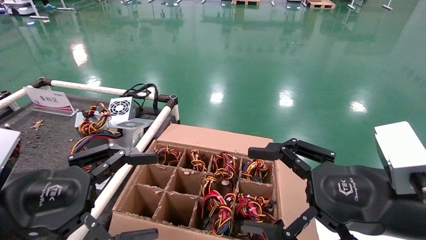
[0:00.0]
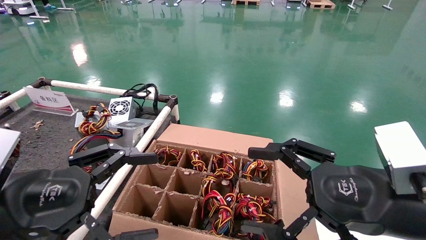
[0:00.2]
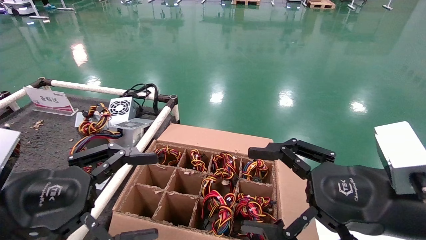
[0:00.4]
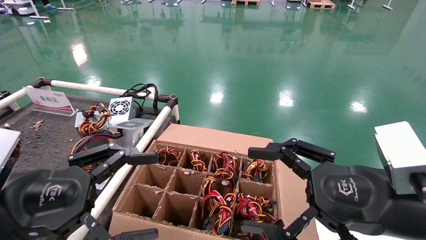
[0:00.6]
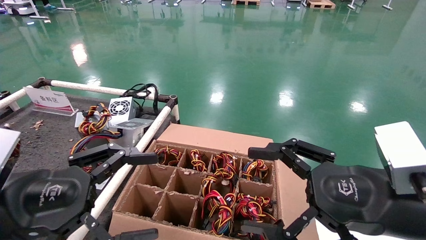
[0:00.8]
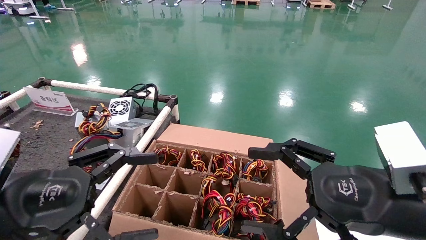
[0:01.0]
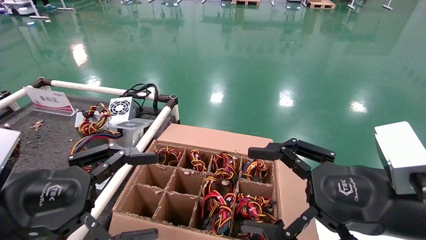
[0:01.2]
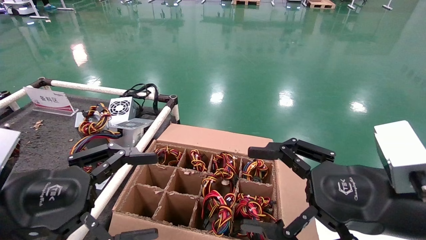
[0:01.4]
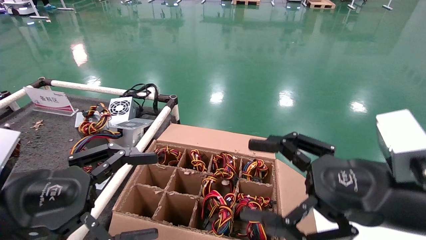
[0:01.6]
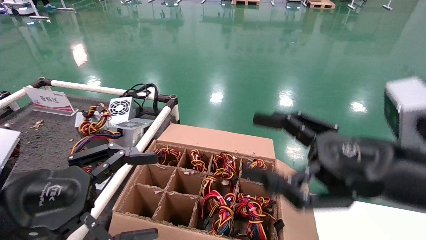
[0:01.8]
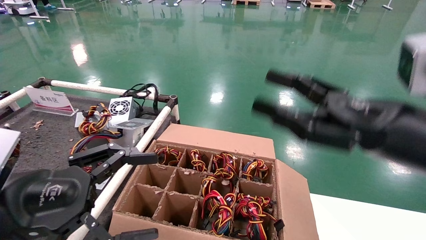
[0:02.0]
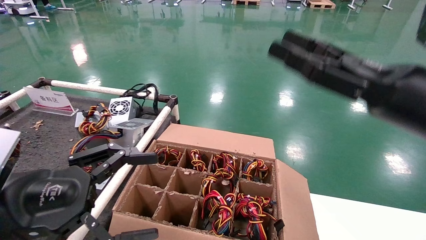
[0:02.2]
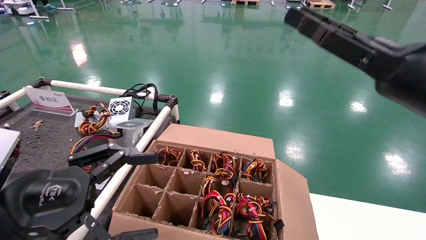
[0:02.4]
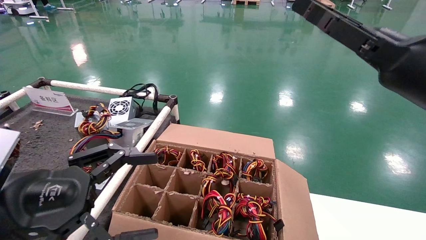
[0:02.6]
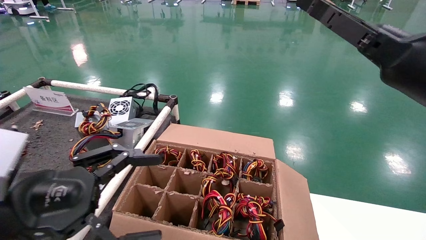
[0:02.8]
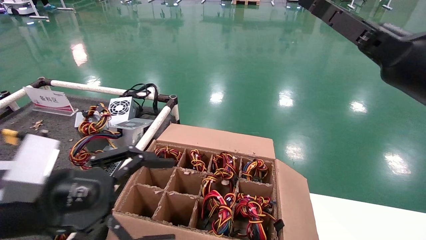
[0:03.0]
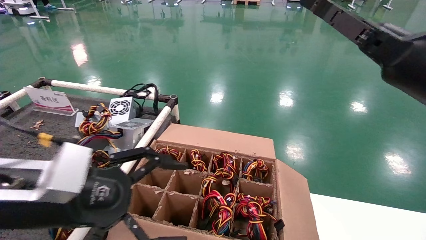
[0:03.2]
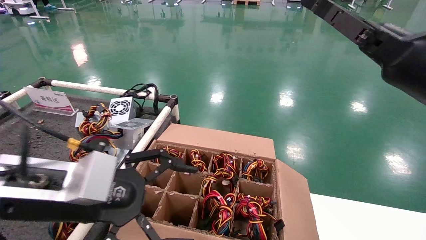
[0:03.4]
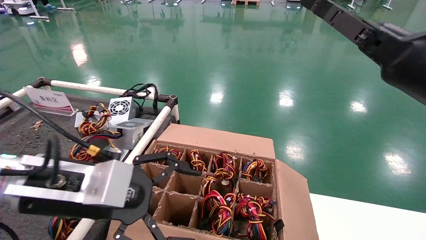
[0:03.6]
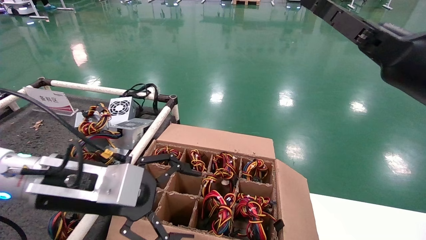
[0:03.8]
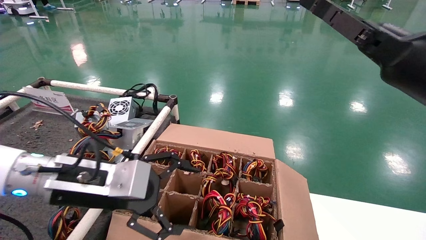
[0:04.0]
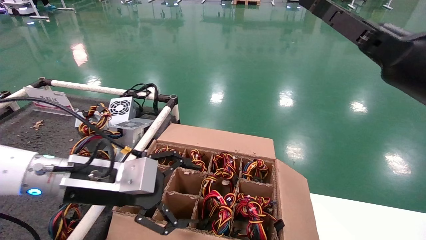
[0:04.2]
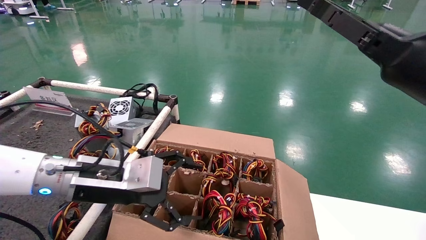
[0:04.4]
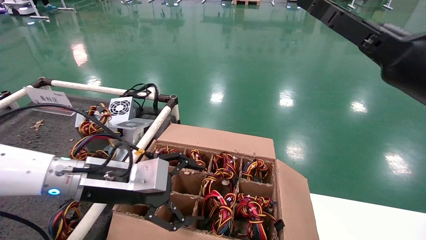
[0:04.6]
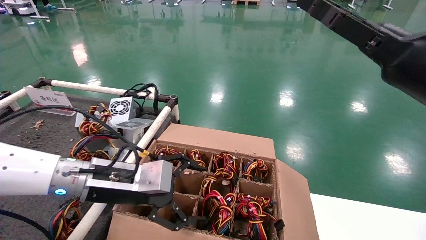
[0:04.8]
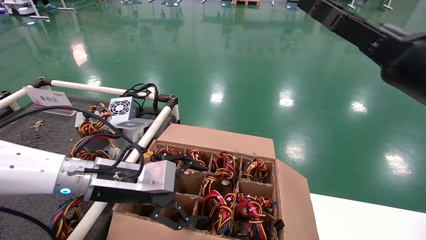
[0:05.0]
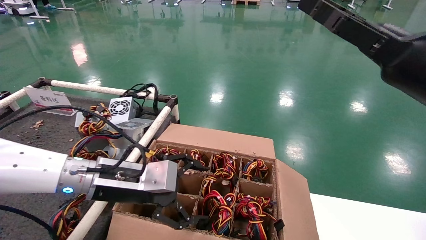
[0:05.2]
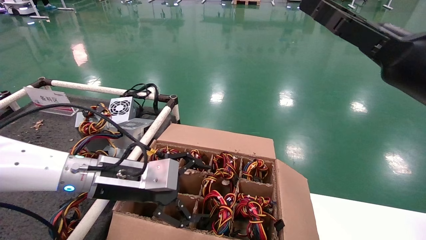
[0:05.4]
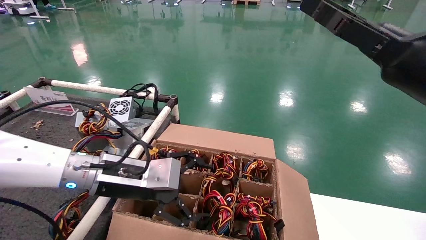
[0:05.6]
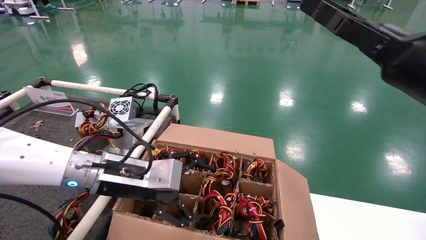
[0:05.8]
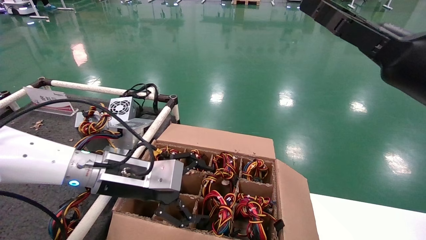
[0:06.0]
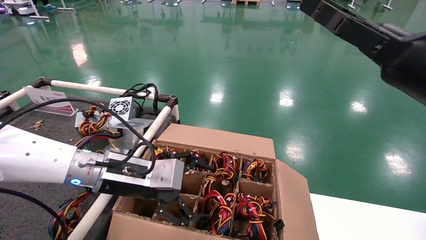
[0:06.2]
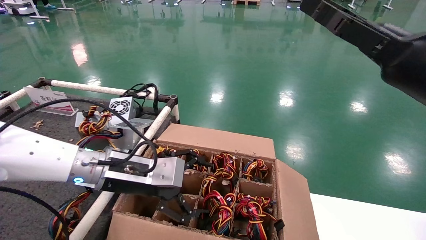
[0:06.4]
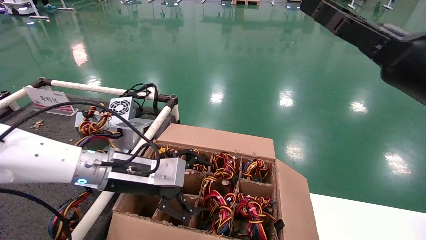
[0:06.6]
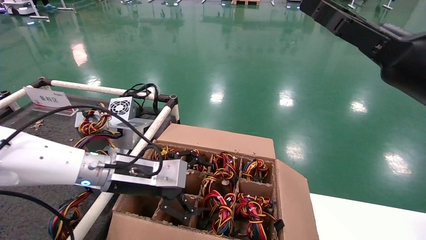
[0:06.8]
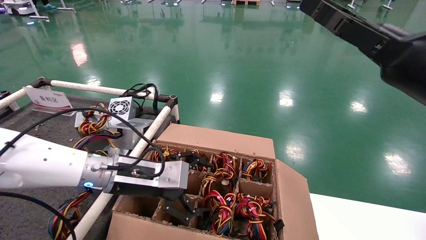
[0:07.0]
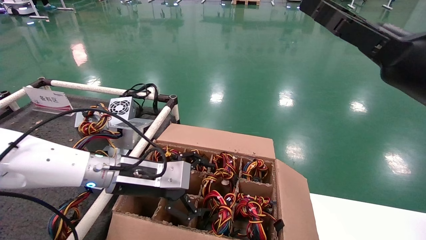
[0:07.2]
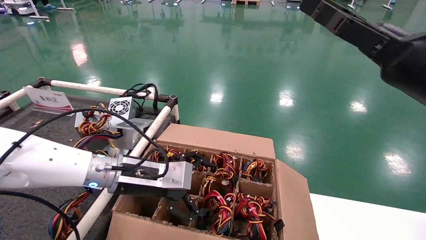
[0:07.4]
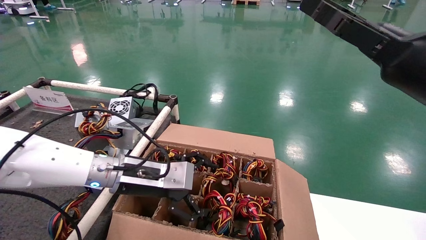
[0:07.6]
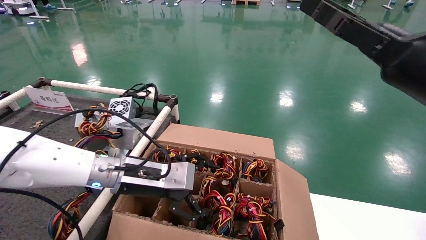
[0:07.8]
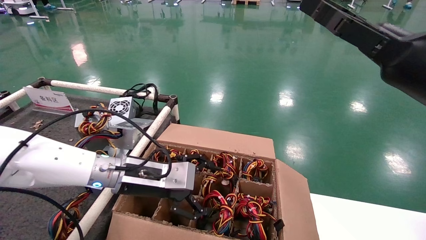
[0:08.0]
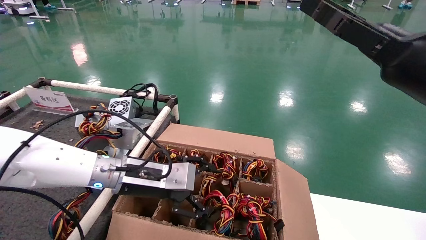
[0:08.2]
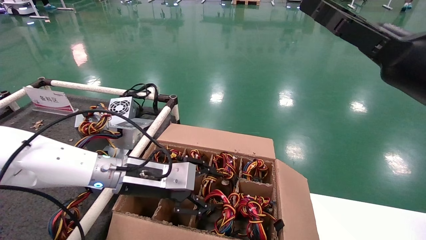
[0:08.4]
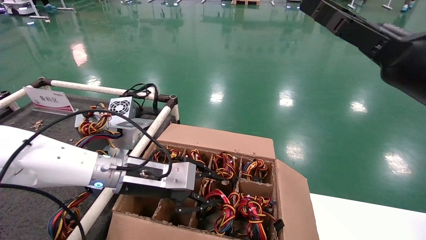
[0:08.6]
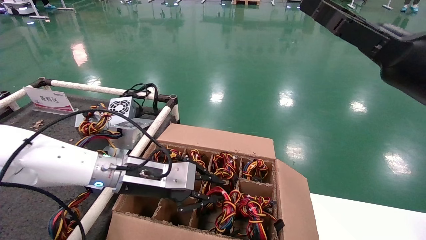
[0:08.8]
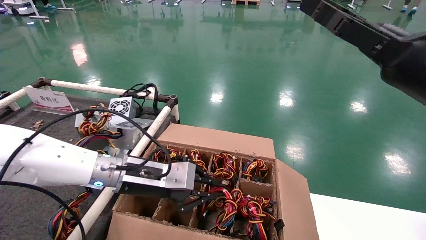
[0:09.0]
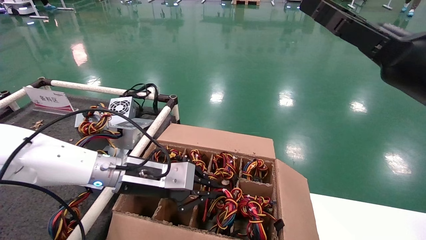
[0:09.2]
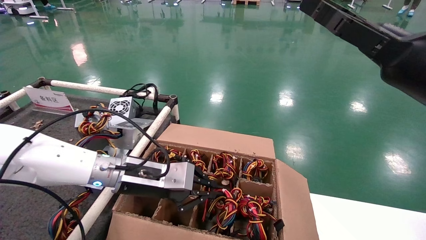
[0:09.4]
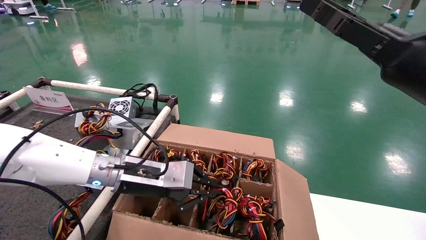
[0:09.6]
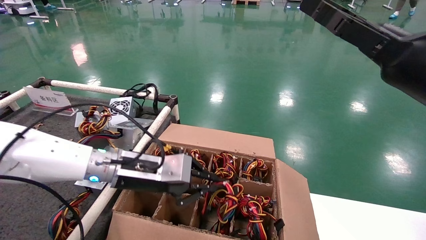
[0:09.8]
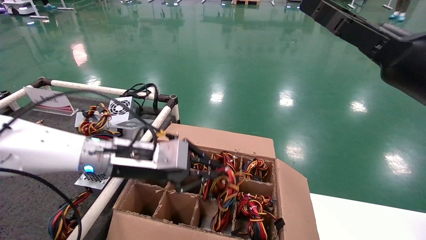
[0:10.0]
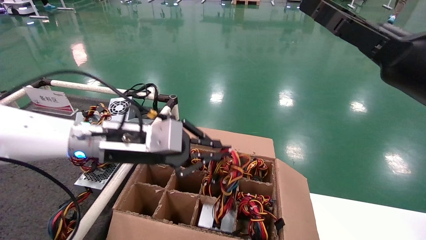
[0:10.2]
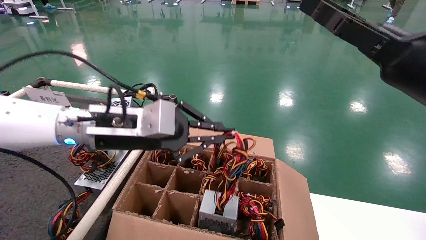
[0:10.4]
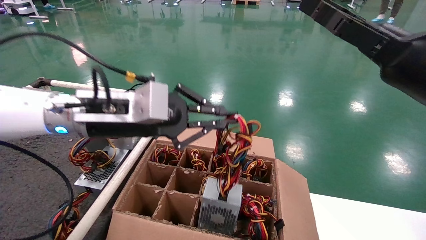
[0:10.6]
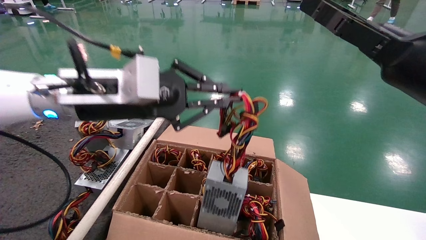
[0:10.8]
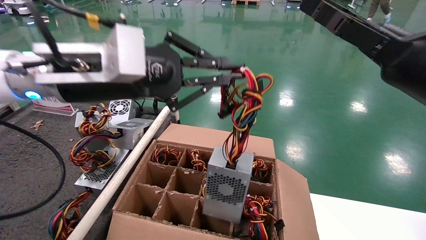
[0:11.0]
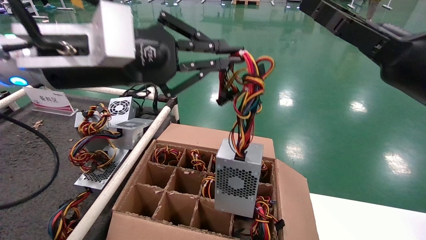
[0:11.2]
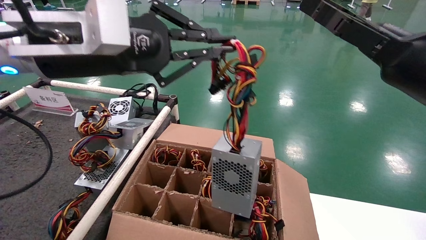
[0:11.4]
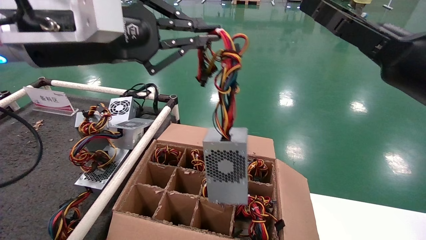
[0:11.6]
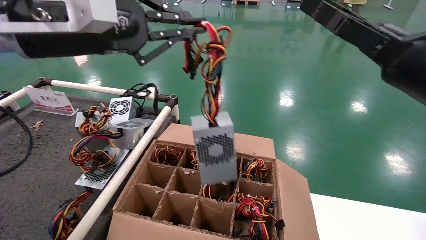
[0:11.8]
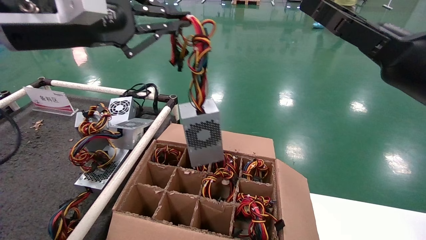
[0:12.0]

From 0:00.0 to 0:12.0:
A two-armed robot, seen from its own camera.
Step, from 0:00.0 to 0:09.2: Grasp the battery.
From 0:00.0 to 0:01.6: The grippers stay close to where they were, moving slightly.
From 0:01.6 to 0:03.0: The right gripper shifts roughly 15 cm upward, forward and to the right, and closes its fingers.
From 0:03.0 to 0:04.4: The left gripper is displaced forward and to the right by approximately 10 cm.
From 0:04.4 to 0:06.0: The right gripper opens up.
From 0:06.0 to 0:07.6: The grippers stay close to where they were, moving slightly.
From 0:07.6 to 0:09.0: The left gripper closes up.
From 0:09.0 to 0:10.4: The left gripper heads upward, covering approximately 10 cm.
From 0:10.4 to 0:12.0: The left gripper travels upward and to the left by some 15 cm.

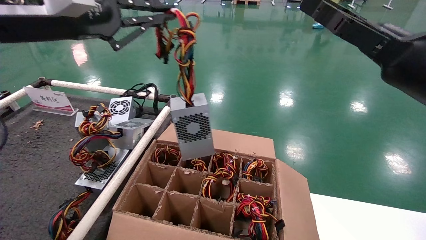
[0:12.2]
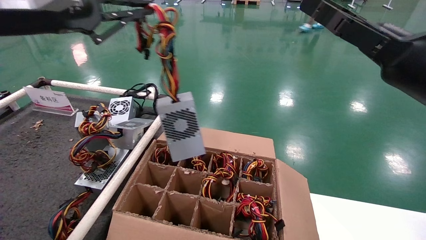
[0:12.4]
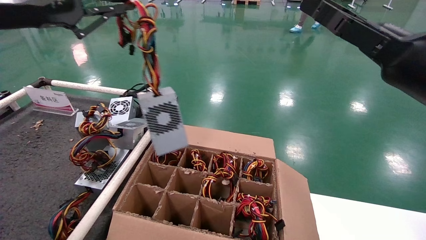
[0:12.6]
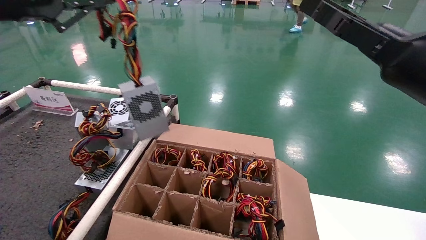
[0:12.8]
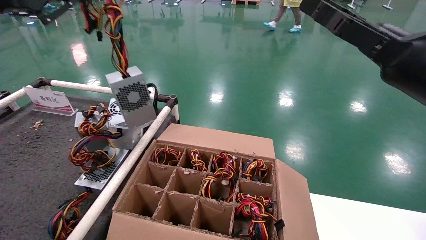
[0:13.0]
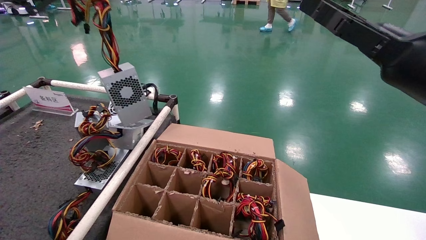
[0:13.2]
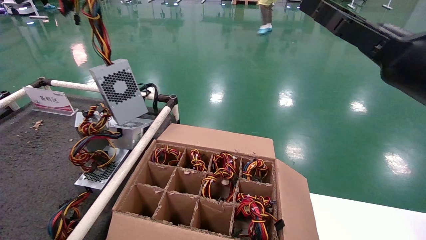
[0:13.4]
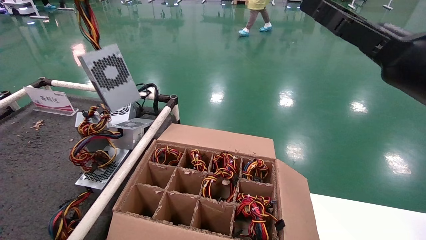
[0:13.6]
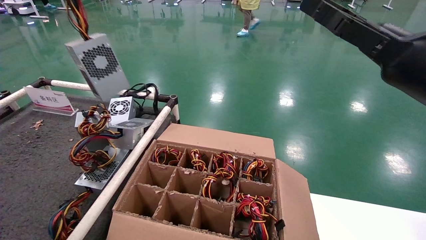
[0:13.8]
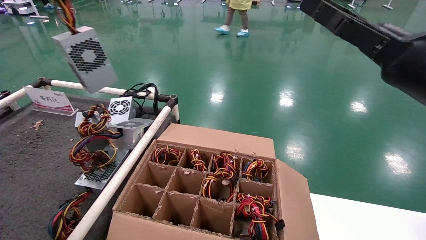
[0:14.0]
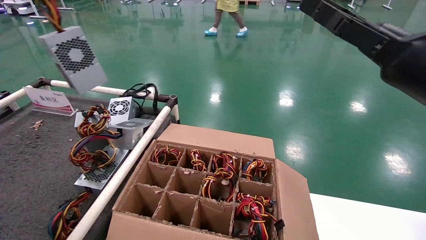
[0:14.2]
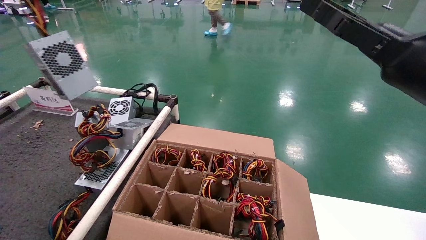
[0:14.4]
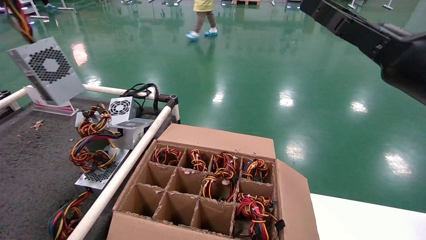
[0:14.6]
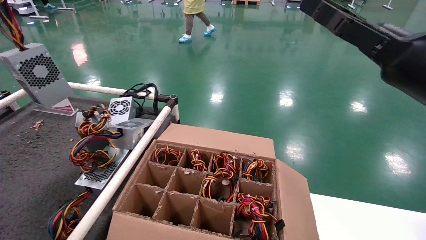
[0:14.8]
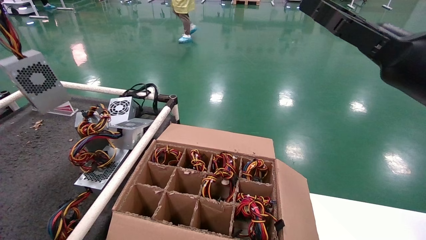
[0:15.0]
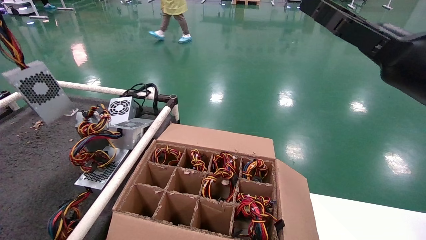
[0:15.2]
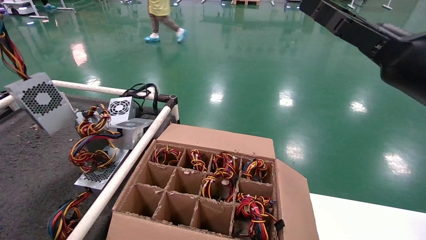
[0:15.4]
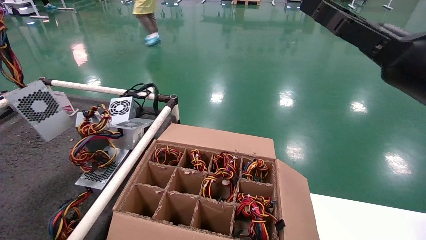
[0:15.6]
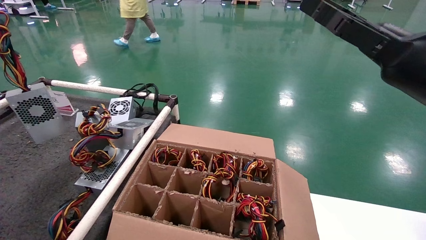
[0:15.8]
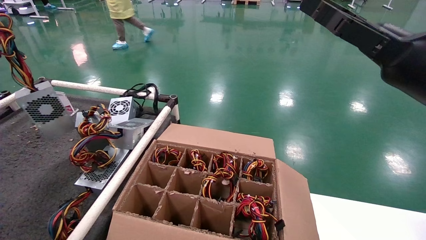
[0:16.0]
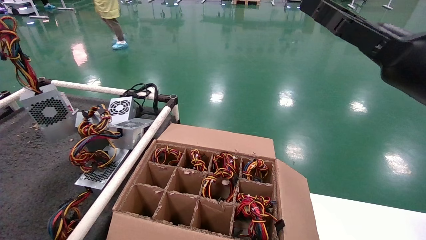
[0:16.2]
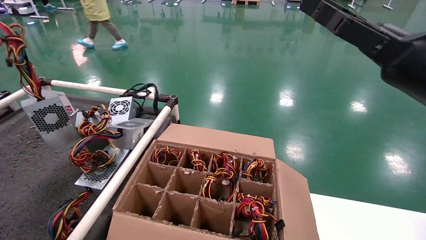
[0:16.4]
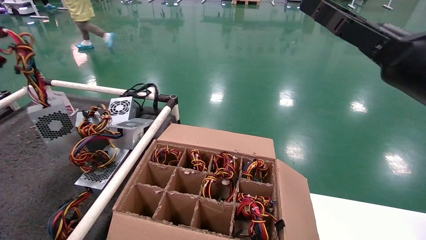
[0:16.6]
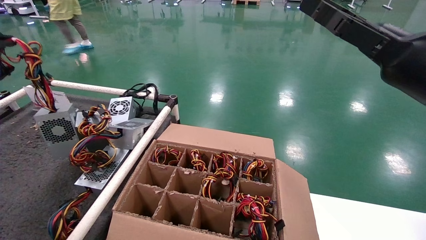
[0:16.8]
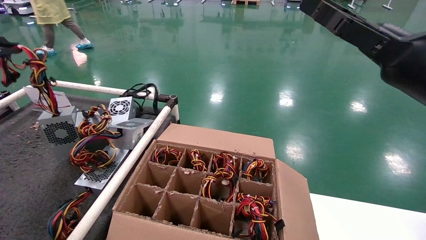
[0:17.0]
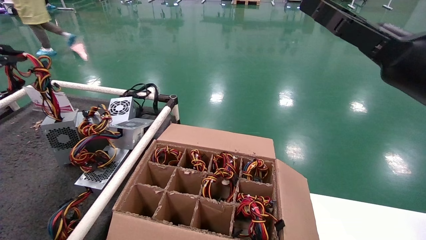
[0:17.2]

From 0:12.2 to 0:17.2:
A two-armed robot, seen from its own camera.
From 0:12.2 to 0:13.8: The left gripper shifts approximately 15 cm to the left and upward.
From 0:13.8 to 0:15.6: The left gripper shifts about 10 cm to the left and downward.
From 0:15.6 to 0:17.2: The left gripper travels downward by approximately 5 cm.
